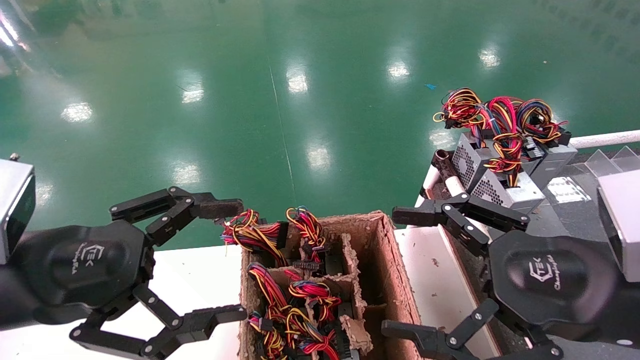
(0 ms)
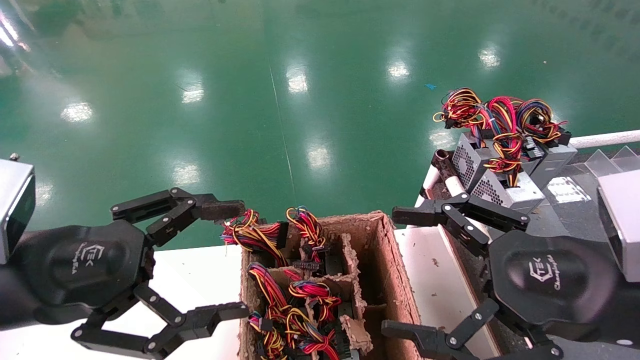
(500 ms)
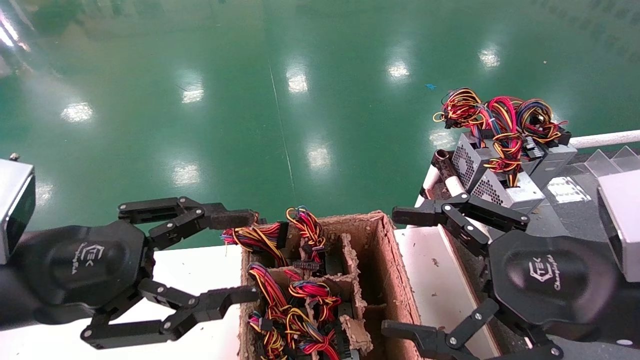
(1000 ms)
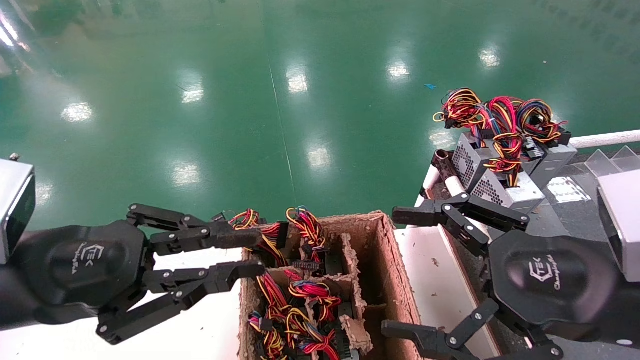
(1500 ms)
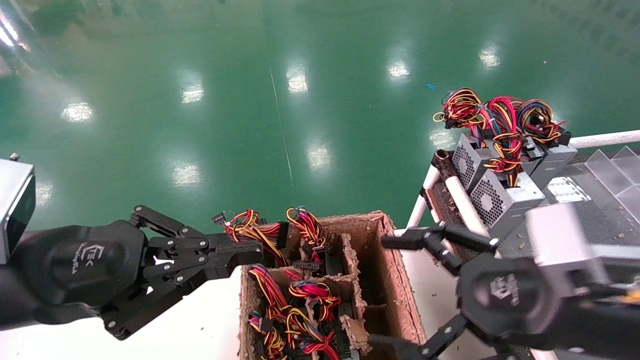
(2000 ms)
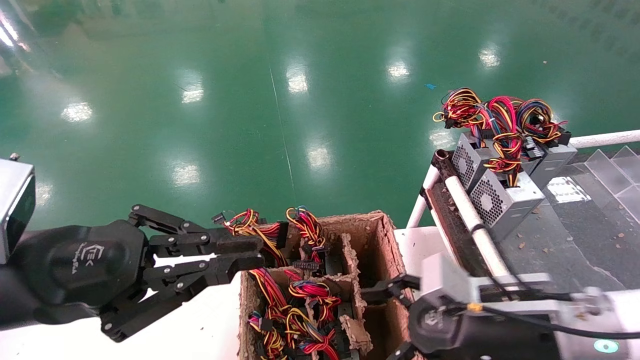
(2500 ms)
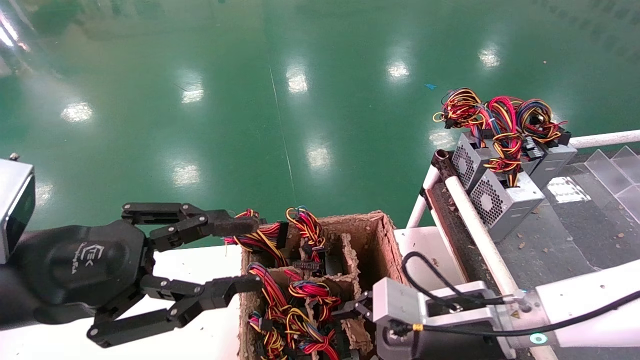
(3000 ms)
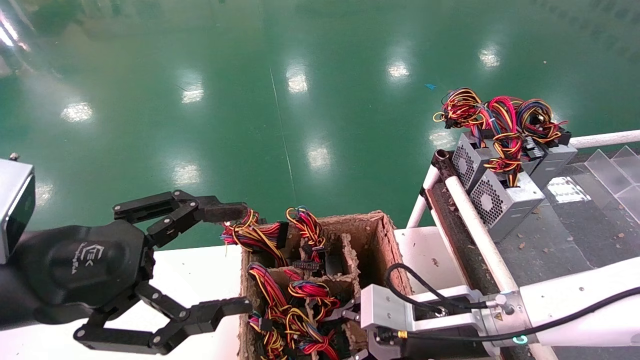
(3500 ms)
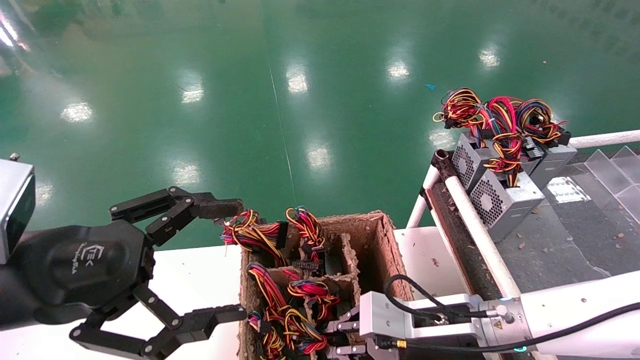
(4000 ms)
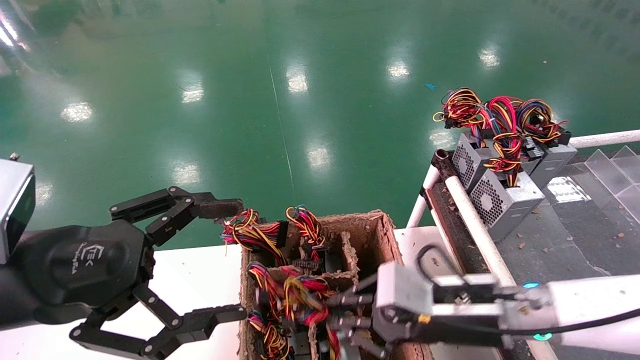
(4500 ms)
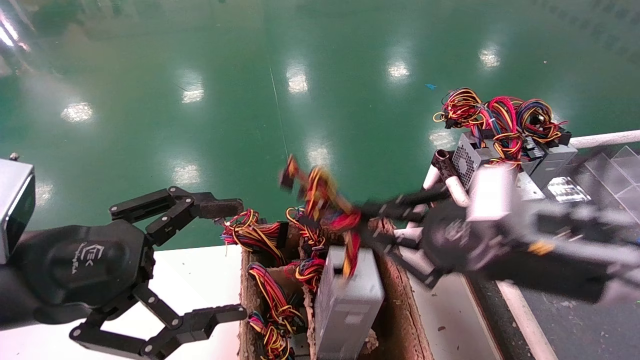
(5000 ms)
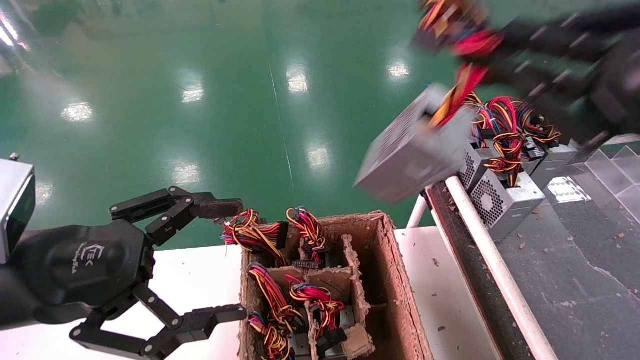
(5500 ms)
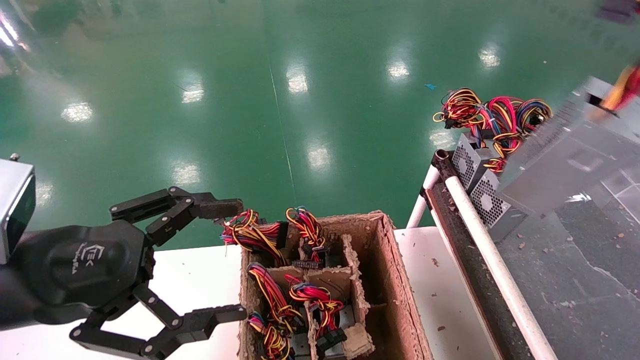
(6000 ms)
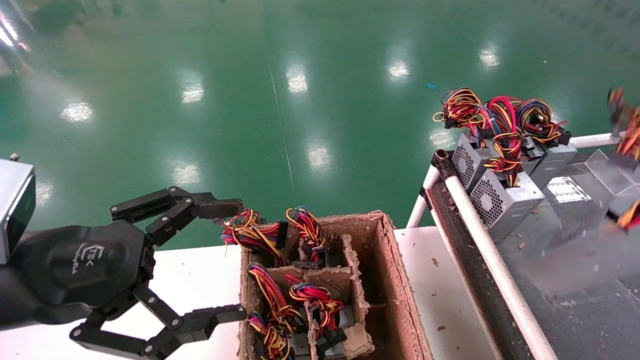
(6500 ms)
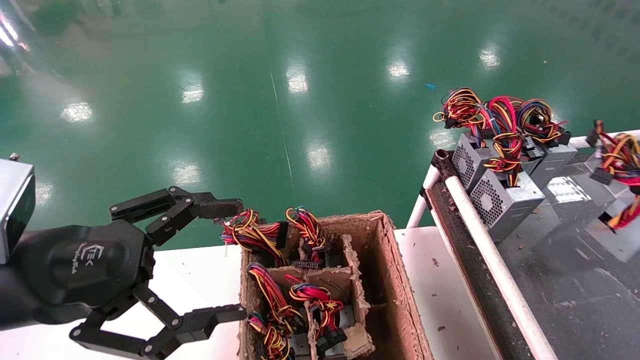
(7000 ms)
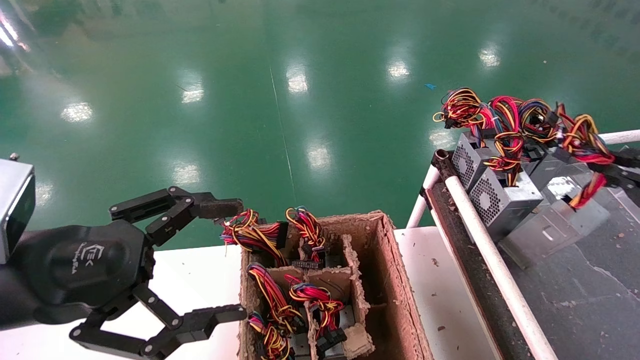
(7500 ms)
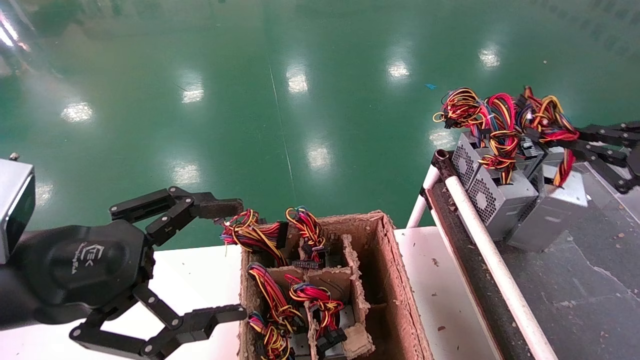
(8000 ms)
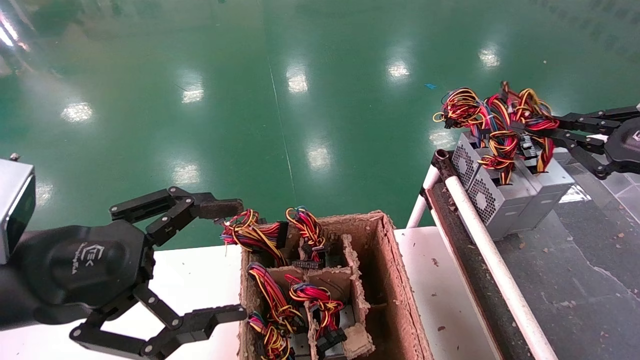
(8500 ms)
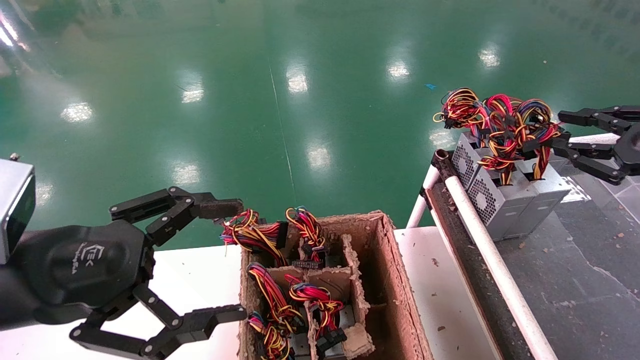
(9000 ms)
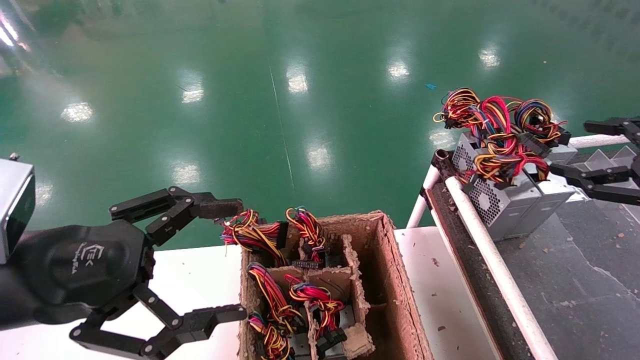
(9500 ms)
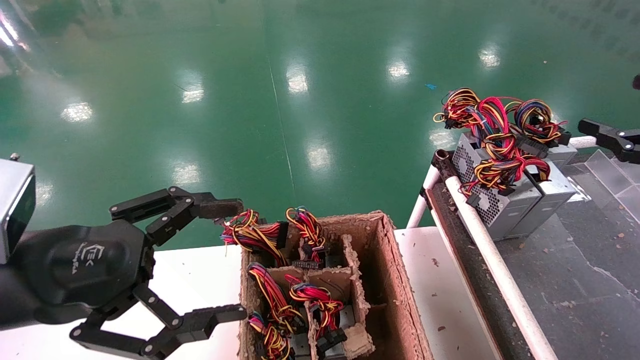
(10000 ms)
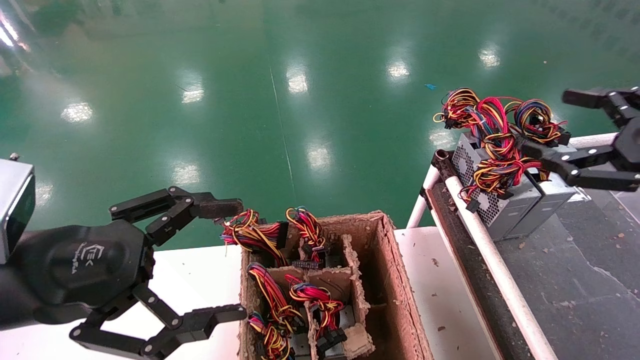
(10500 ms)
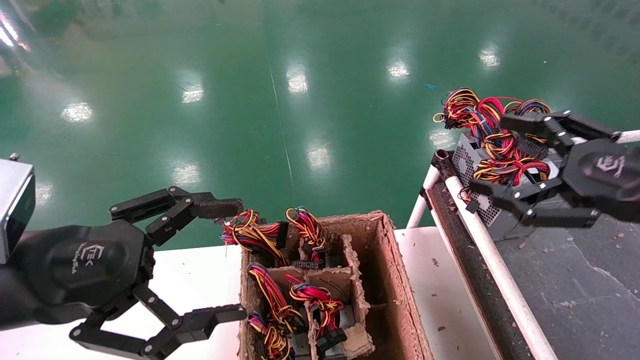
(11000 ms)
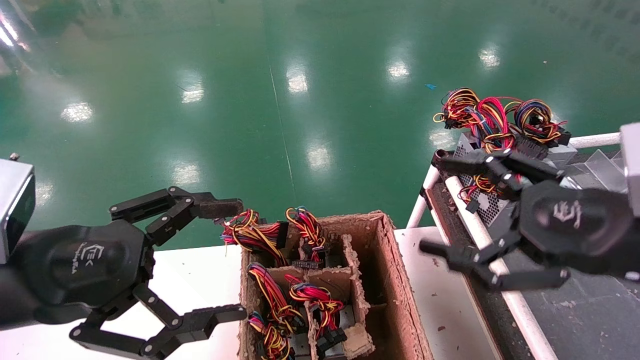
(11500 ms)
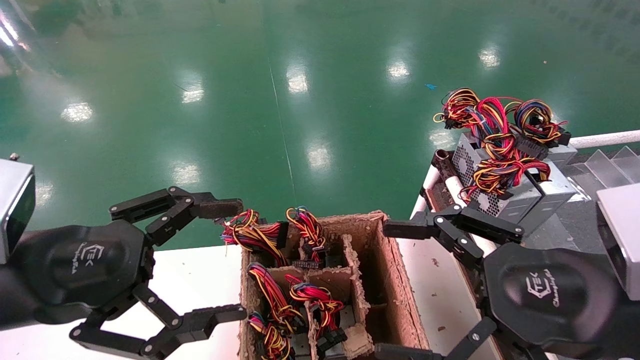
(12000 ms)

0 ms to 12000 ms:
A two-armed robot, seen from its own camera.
Step, 2000 ms to 4000 ms: Grab and lift the power supply from the large box.
Step, 4500 ms to 9000 ms: Place the power supply on the operating table.
0 ms to 2000 ms: The left gripper closes its fingers.
2000 ms to 4000 ms: The right gripper heads downward, forward and to the left, covering some 15 cm, and closes. The left gripper opens its fingers.
4000 ms to 6000 ms: The right gripper goes approximately 40 cm upward, to the right and backward.
6000 ms to 8000 ms: The right gripper is displaced forward and downward by some 15 cm.
8000 ms to 10000 ms: The right gripper opens.
10000 ms to 12000 ms: The right gripper moves to the left, roughly 20 cm.
